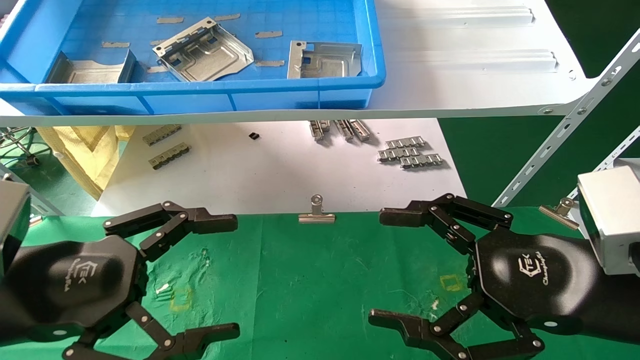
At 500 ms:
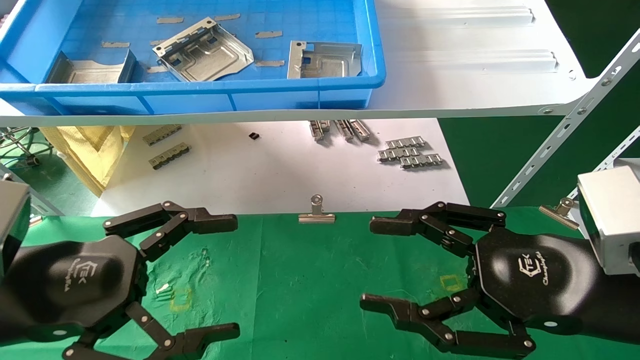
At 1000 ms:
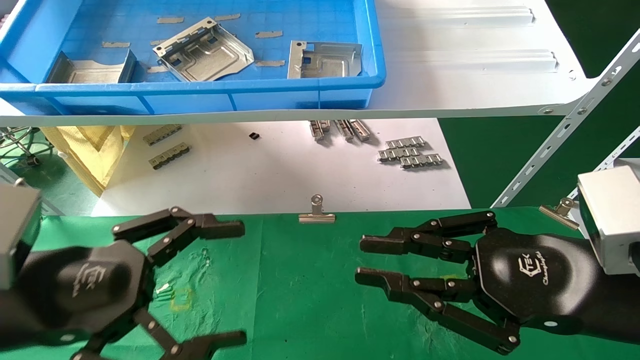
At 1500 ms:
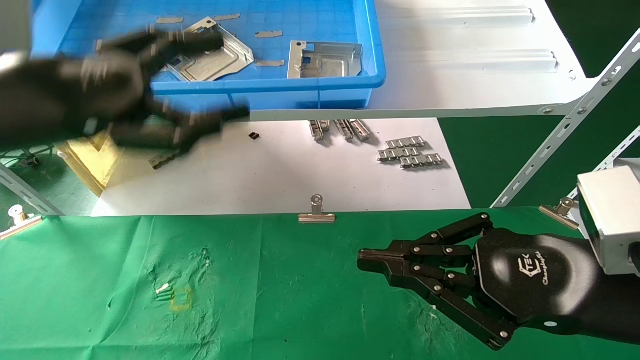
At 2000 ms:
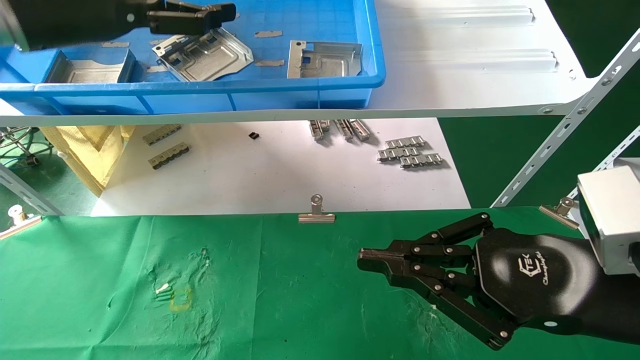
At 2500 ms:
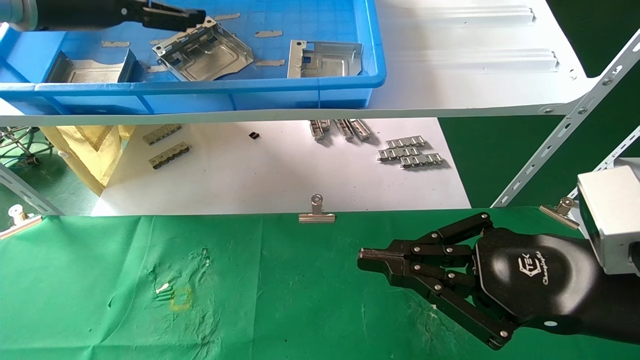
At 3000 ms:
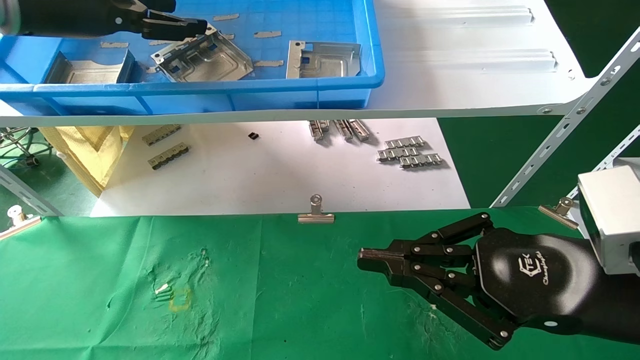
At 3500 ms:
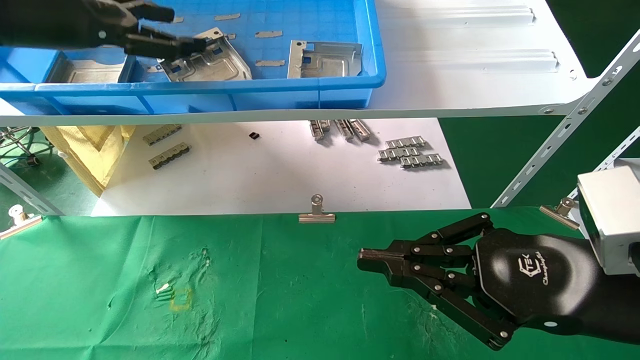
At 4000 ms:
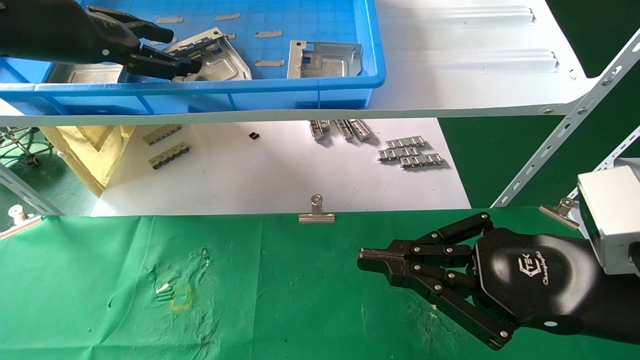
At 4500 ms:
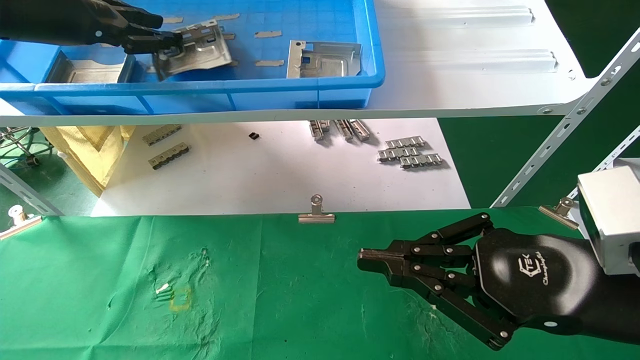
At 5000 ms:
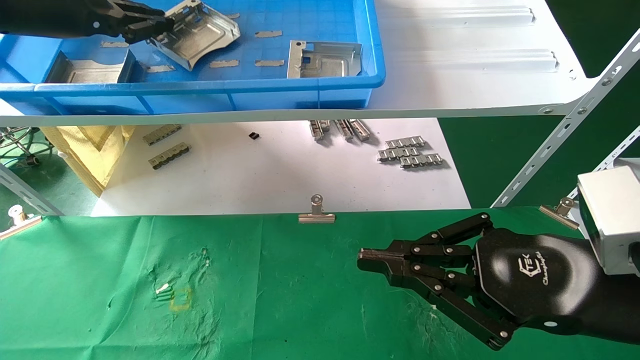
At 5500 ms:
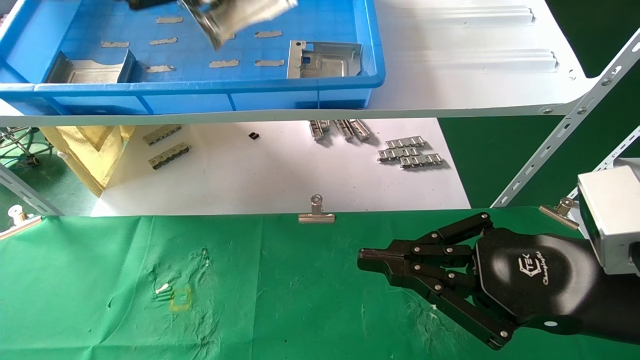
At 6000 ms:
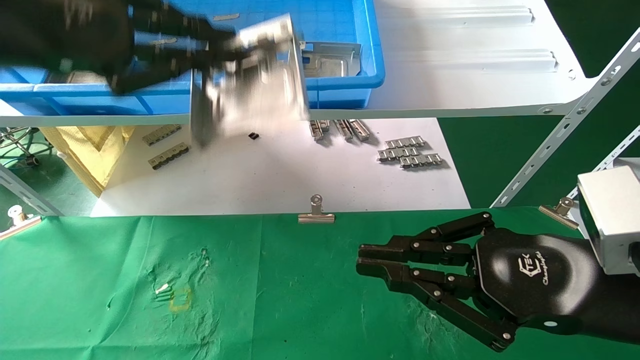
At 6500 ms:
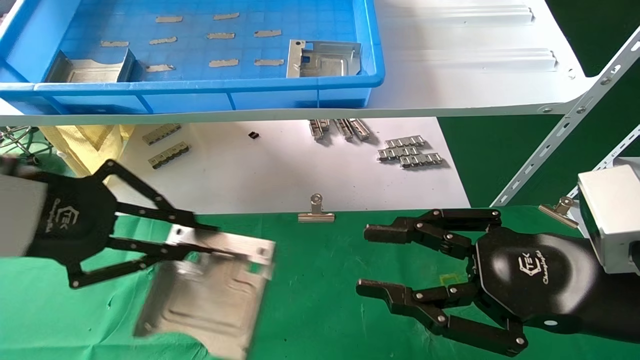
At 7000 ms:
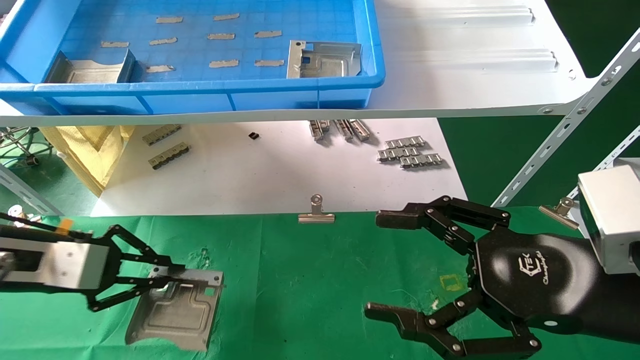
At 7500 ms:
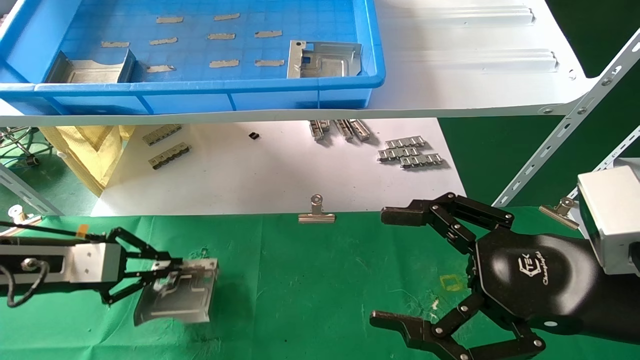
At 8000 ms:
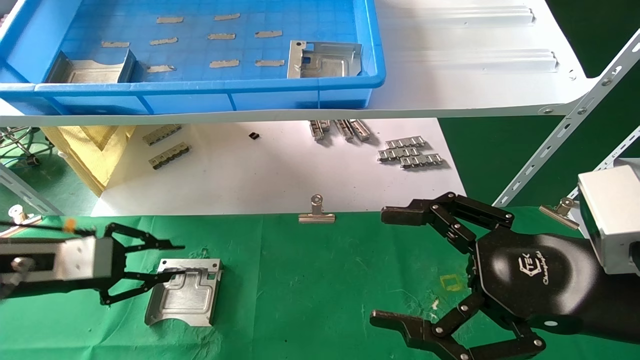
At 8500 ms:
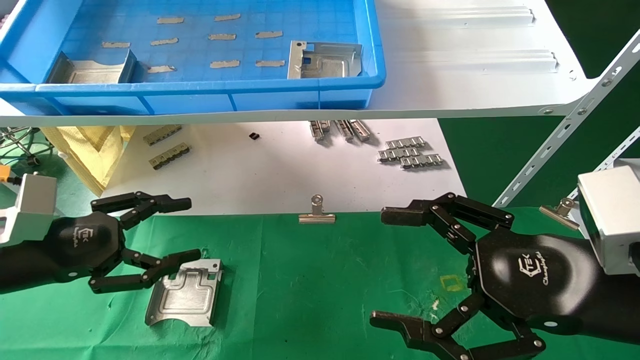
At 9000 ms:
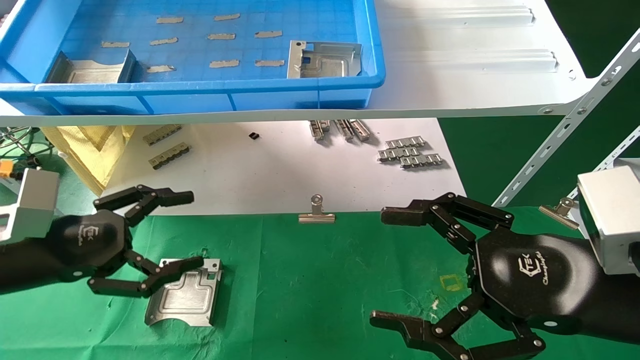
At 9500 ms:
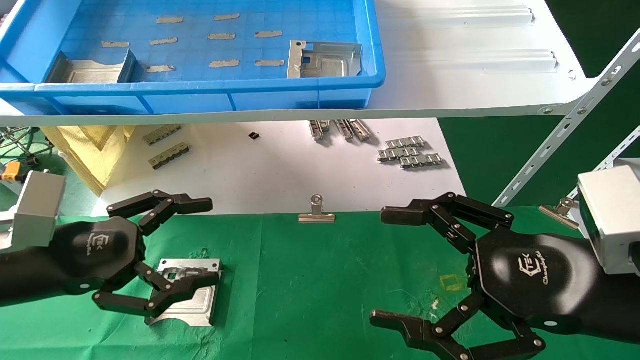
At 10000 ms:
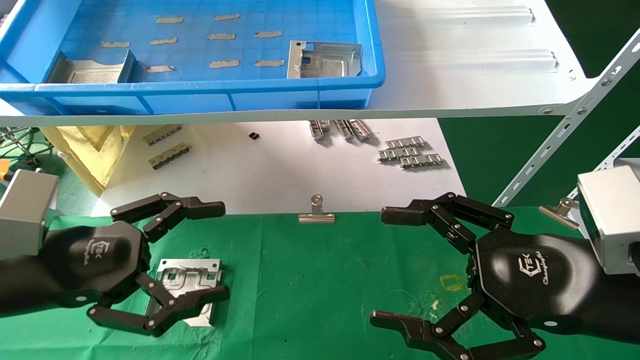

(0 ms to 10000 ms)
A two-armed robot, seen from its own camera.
Task of the whole recording: use the mechanical arm to pick up the parts and place them on the table.
Step, 1500 ms - 4500 ms: Pick up the hard drive bracket from the feeding area.
Step, 5000 ms - 8000 ms: Place the hard drive bracket into the box.
0 ms - 2000 ms: The left gripper shifts approximately 25 cm upward and forward. The right gripper closes its fingers.
4000 ms - 6000 ms: The left gripper shifts roughly 10 cm backward, and closes.
6000 ms - 8000 ms: The right gripper opens its fingers. Meanwhile the left gripper is displaced downward by about 25 cm.
8000 ms - 10000 ms: The left gripper is displaced backward and to the right by approximately 10 cm, and opens up.
